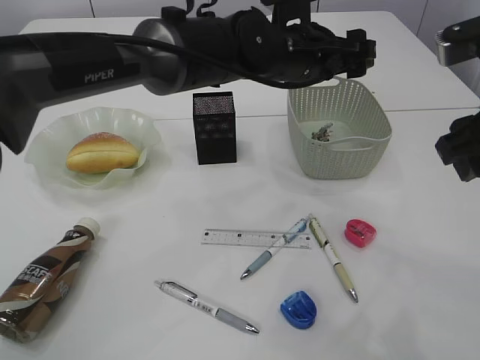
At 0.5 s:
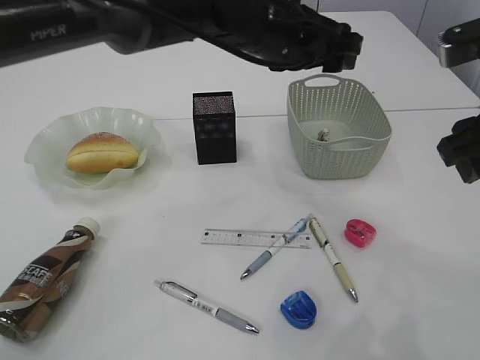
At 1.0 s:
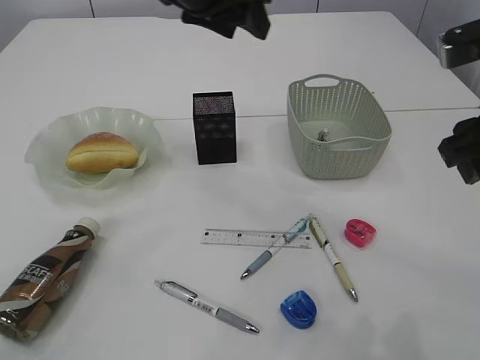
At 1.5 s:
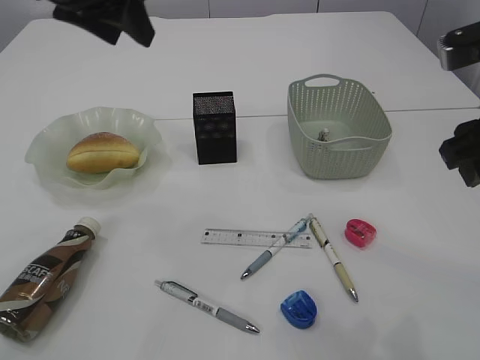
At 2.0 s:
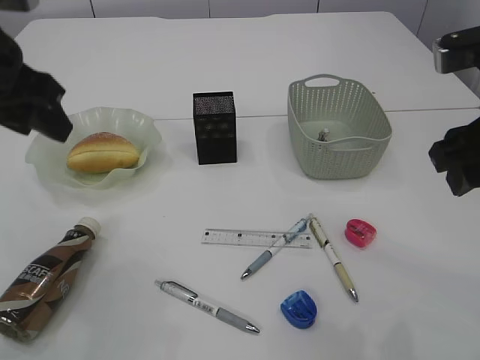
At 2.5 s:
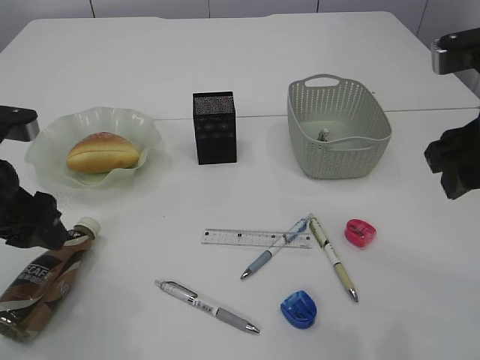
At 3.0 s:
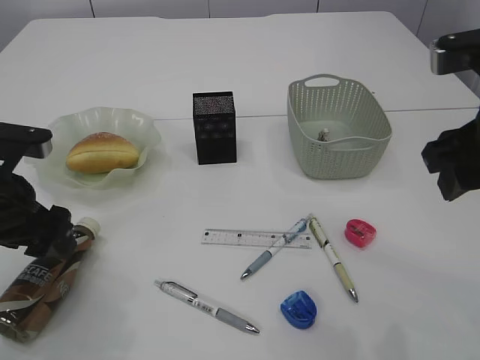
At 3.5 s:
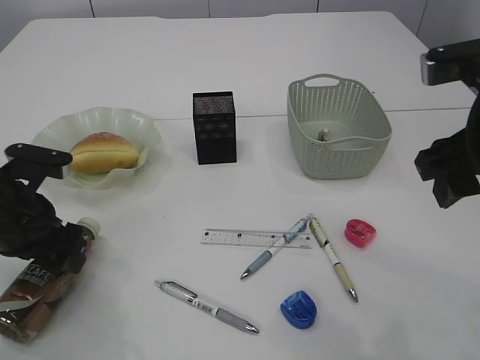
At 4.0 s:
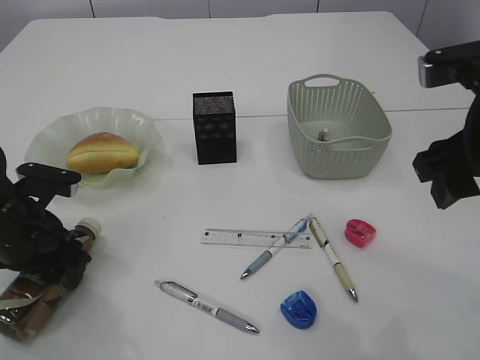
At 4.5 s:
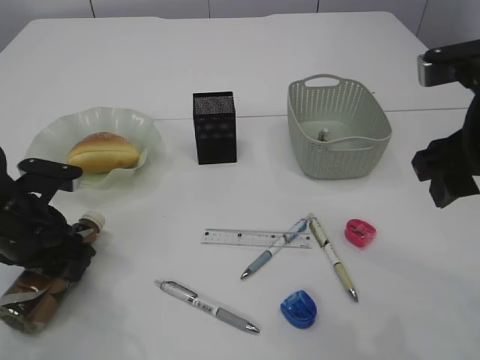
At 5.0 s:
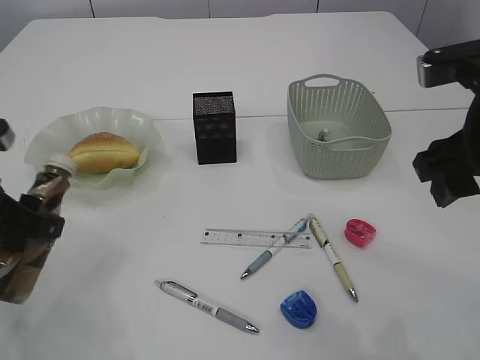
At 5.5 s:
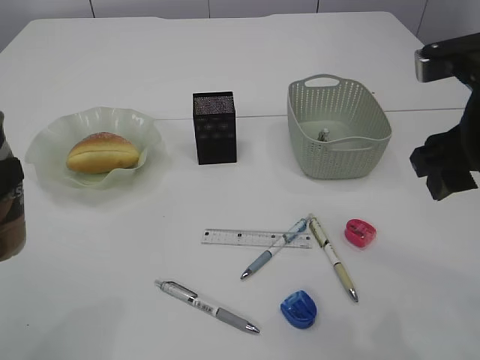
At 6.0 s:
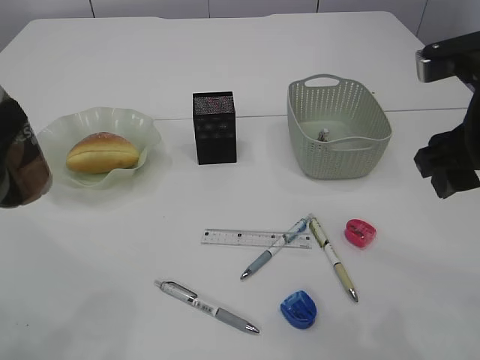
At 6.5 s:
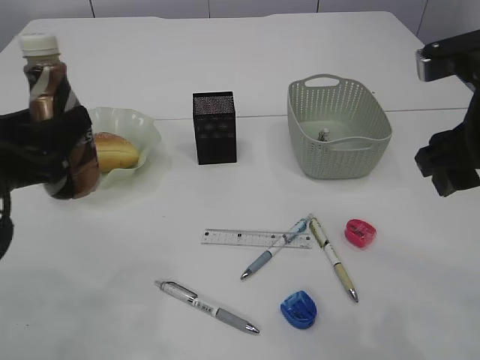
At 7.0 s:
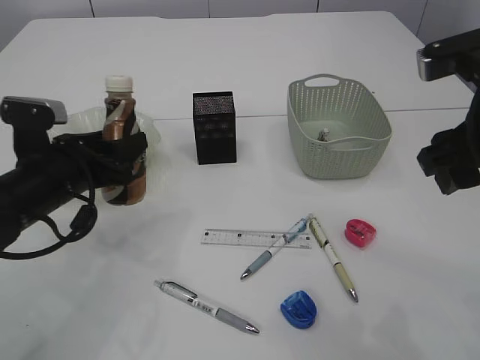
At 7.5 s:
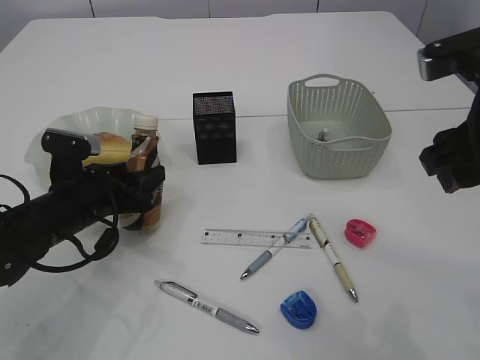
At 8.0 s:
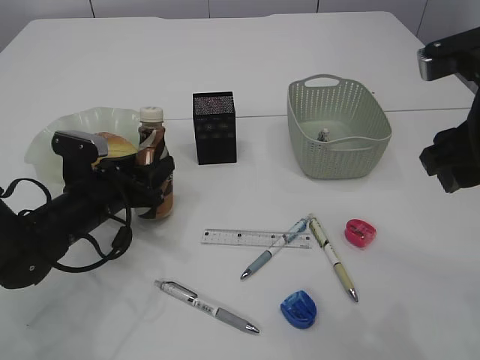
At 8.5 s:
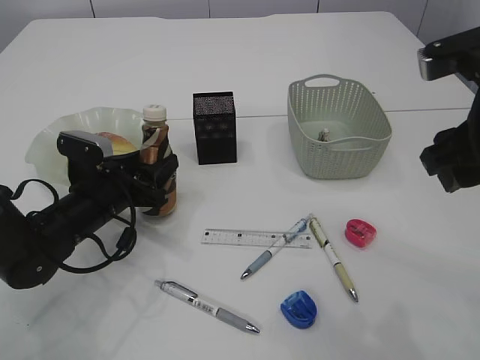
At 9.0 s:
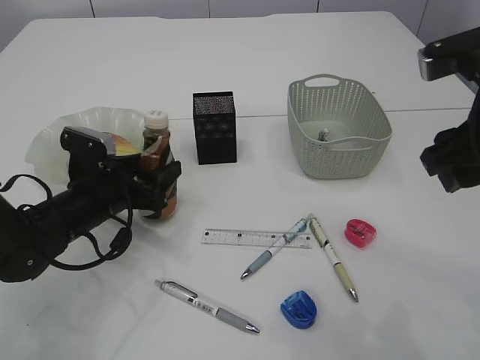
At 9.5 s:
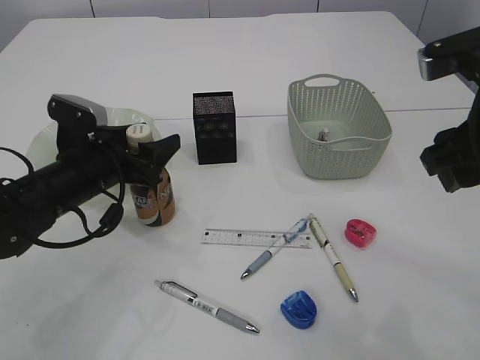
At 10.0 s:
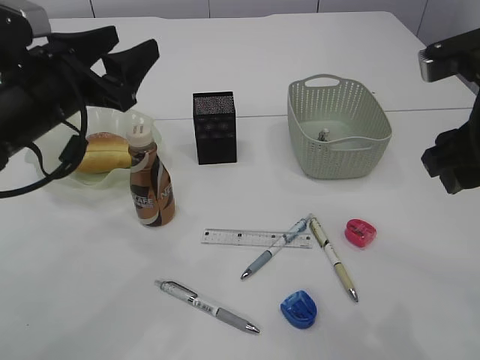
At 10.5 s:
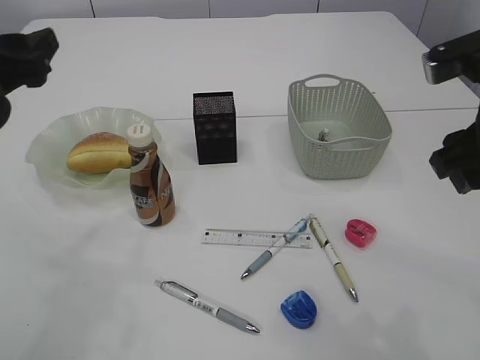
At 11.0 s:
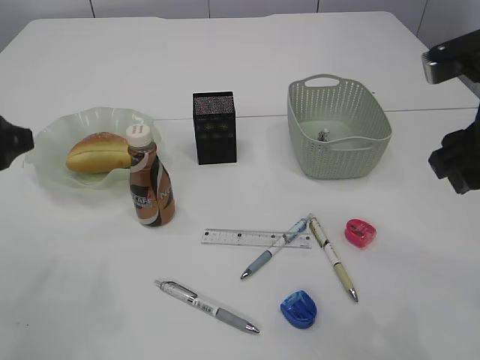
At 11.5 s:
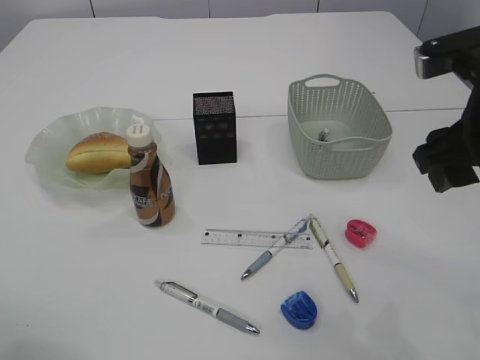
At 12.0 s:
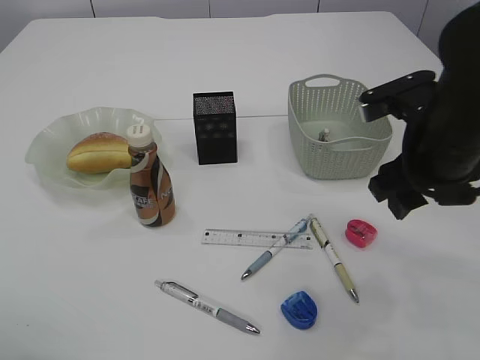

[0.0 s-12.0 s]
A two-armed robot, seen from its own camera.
Step, 0.5 to 4.5 s: Pick up the bottle with the left arm.
Step, 5.0 to 10.0 s: Place the bottle.
0.0 to 2.0 s: The left gripper moves to the left and backward, some 30 cm, and closes.
2.0 to 4.0 s: The left gripper travels downward by some 20 cm.
4.0 to 6.0 s: The left gripper heads upward and backward, covering some 15 cm.
6.0 to 8.0 s: The left gripper heads downward, forward and to the right, covering approximately 20 cm.
8.0 to 10.0 s: The left gripper moves upward, roughly 15 cm, and opens.
10.0 to 12.0 s: The left gripper travels backward and to the left by roughly 15 cm, while the right gripper shifts about 5 cm downward.

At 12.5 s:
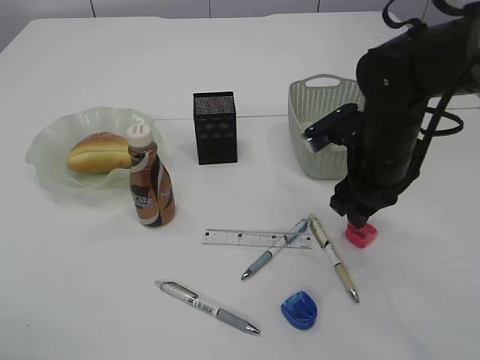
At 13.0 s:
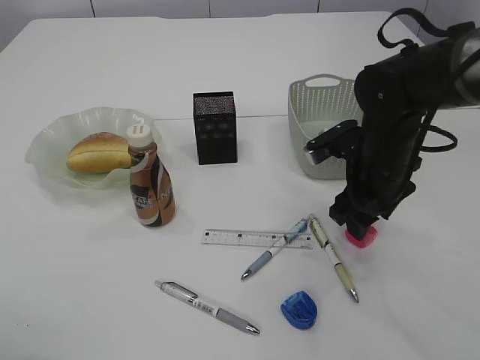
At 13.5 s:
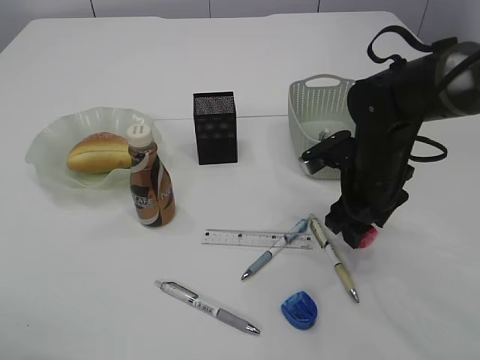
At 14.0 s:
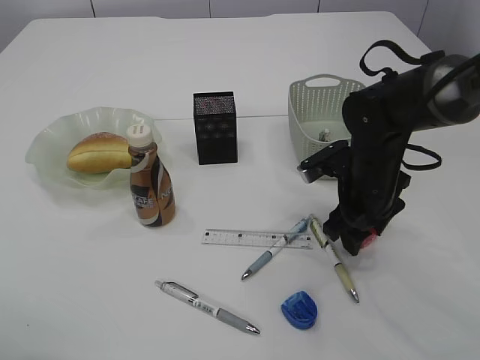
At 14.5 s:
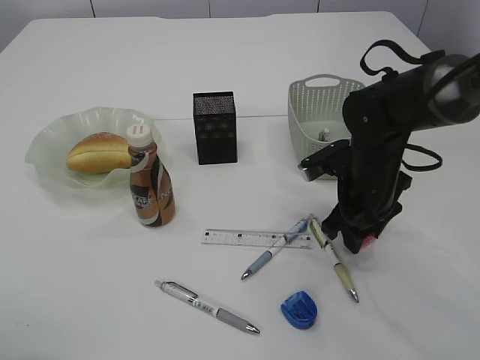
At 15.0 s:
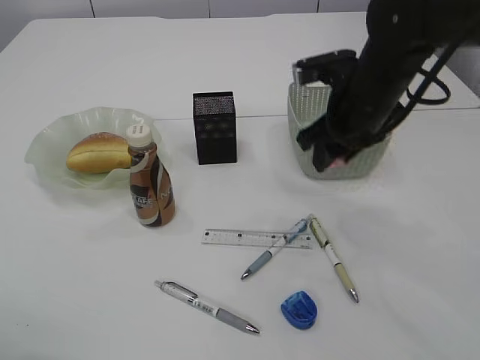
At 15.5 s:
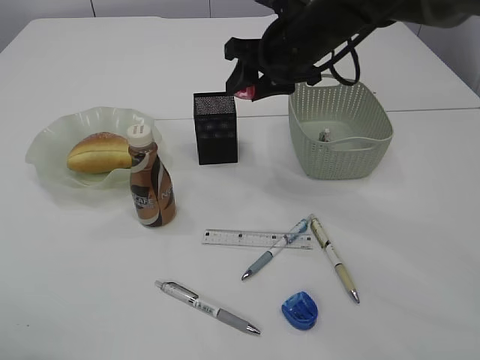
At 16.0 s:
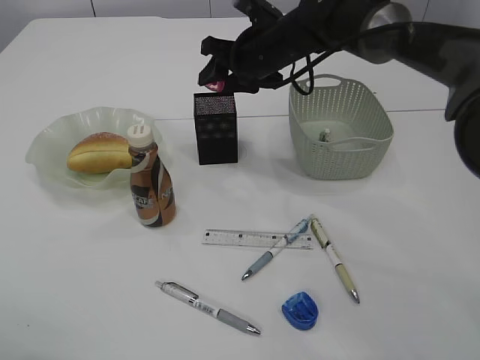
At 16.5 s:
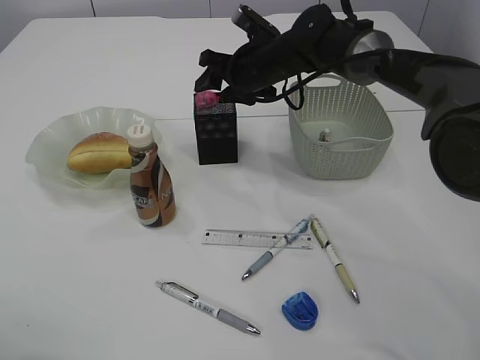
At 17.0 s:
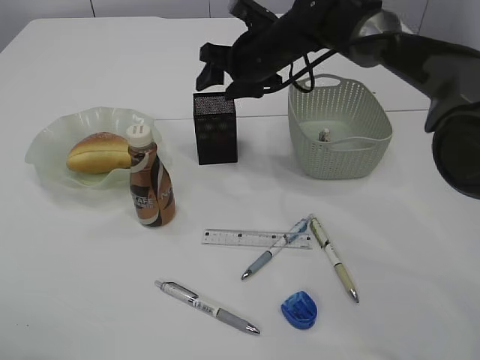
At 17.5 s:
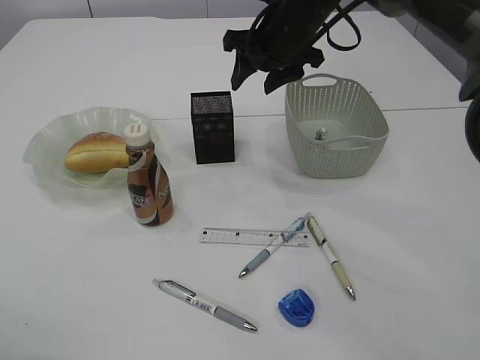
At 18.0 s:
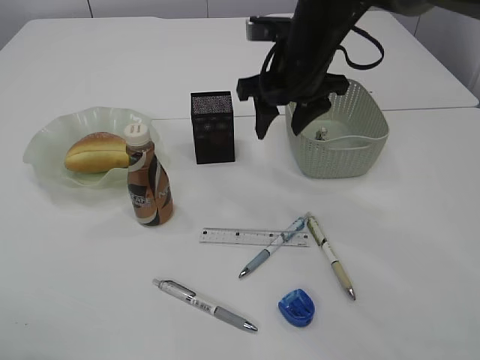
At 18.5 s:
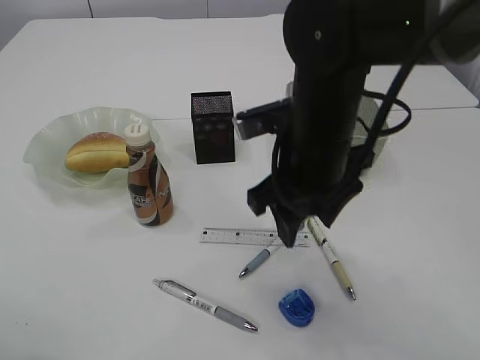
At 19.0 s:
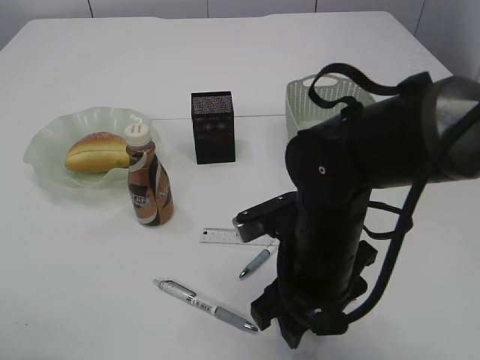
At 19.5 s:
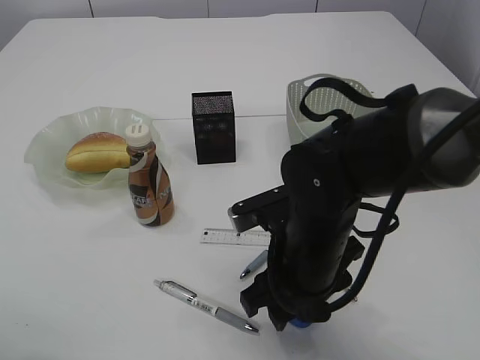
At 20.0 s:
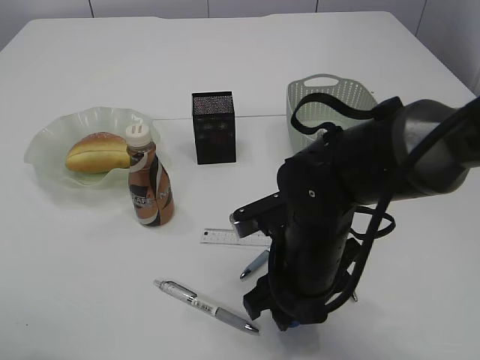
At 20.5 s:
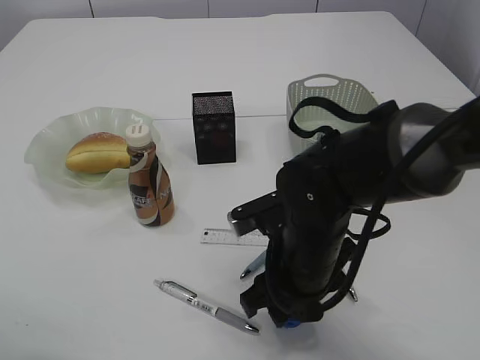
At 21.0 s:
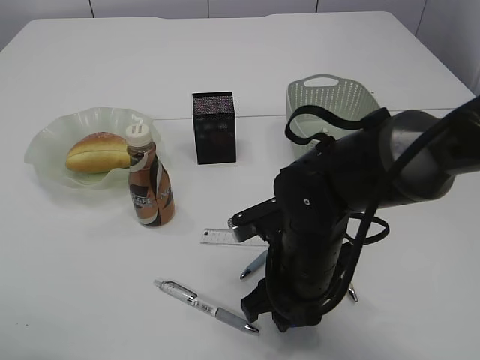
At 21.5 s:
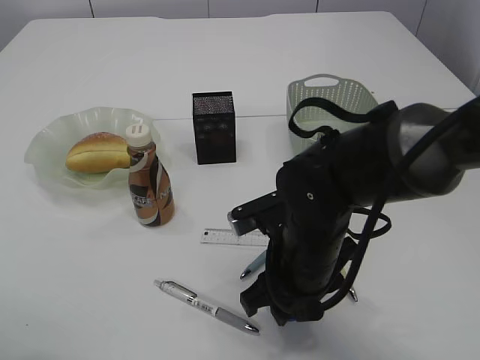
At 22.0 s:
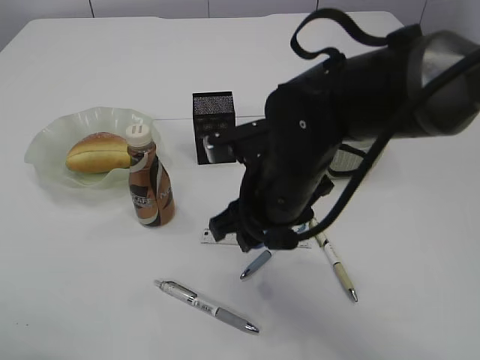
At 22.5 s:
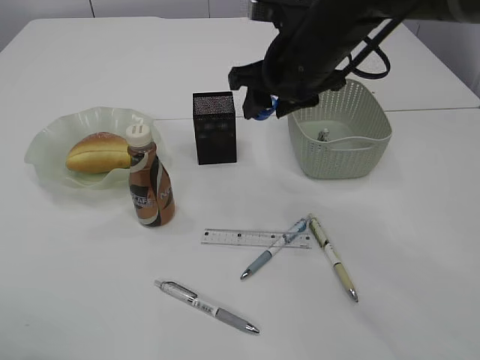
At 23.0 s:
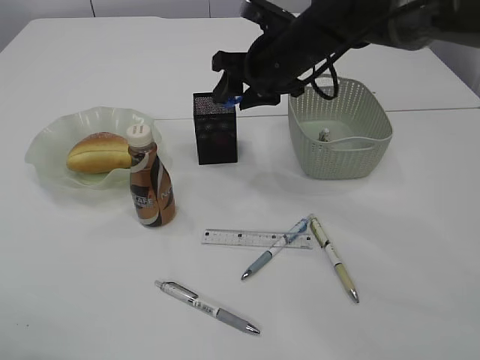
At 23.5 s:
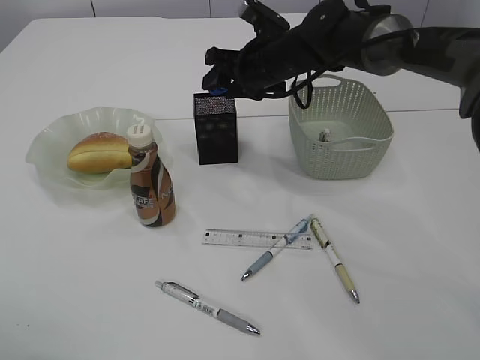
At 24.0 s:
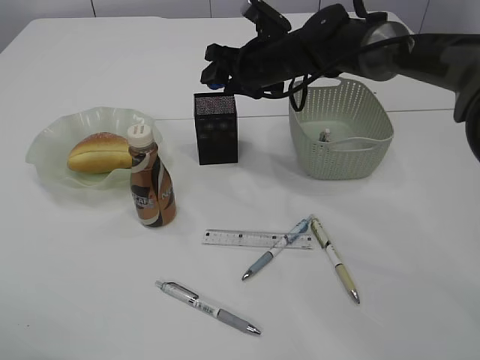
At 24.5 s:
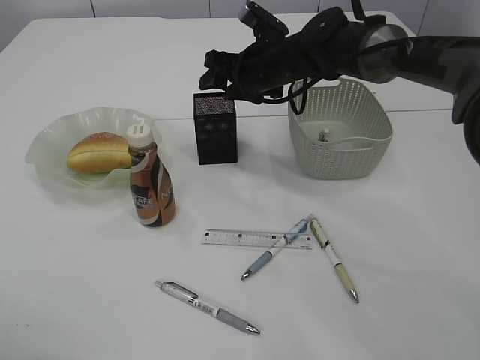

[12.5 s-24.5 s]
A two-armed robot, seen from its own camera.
Step, 12.5 to 14.5 s: Pick up the red pencil sharpener.
Step, 15.0 to 17.0 s: Place the red pencil sharpener into the pen holder.
Step, 17.5 to 21.5 s: Pick up the blue pencil sharpener.
12.5 to 14.5 s: The right gripper shifts approximately 5 cm downward.
14.5 to 16.5 s: The right gripper travels forward, to the left and upward by some 20 cm.
16.5 to 18.5 s: The right gripper is displaced backward by roughly 20 cm.
18.5 to 20.5 s: The right gripper travels downward by some 10 cm.
20.5 to 22.5 s: The right gripper moves upward and forward, approximately 20 cm.
22.5 to 24.5 s: The right gripper shifts roughly 15 cm forward and downward.

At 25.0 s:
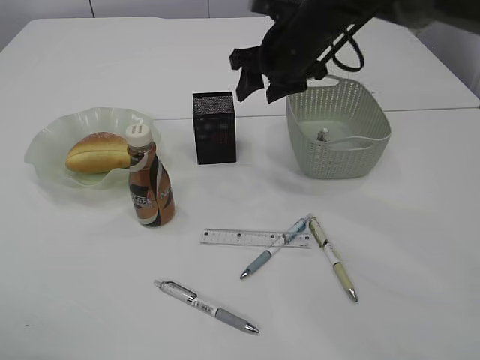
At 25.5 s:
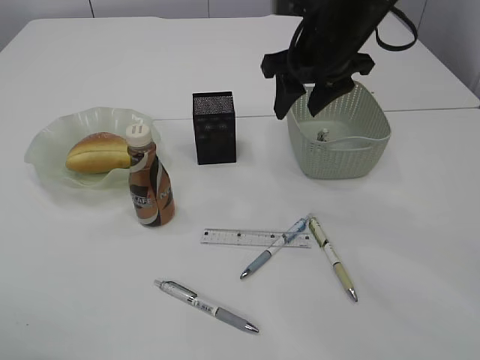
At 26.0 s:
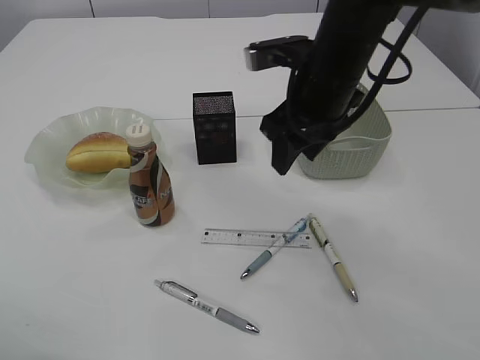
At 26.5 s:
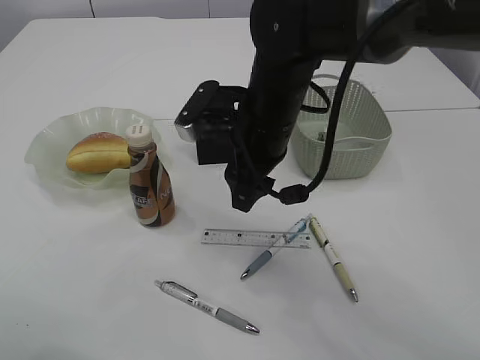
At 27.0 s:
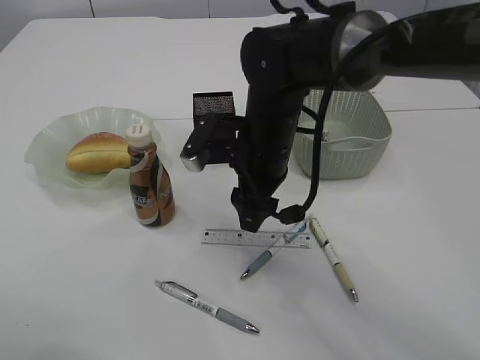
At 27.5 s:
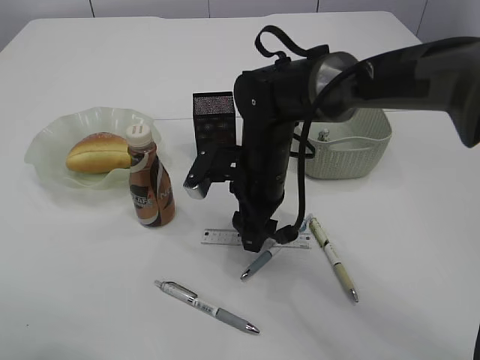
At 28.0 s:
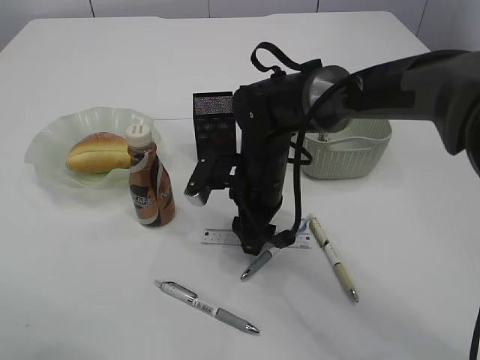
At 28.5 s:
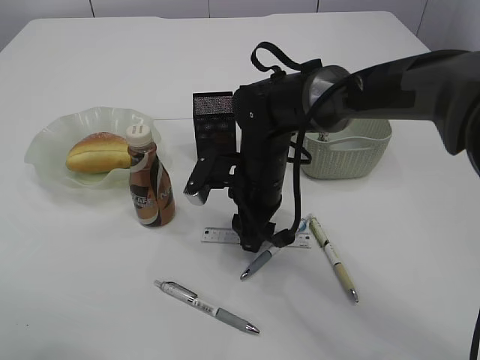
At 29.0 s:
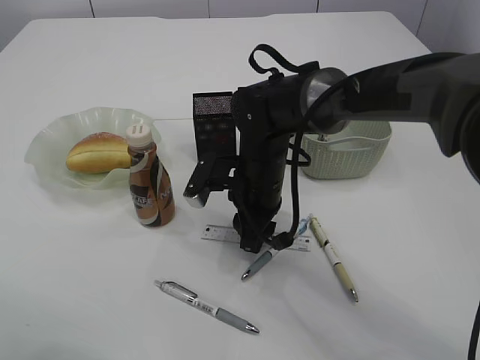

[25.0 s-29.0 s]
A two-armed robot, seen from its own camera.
25.0 to 27.0 s: The right gripper is displaced backward, downward and to the left by approximately 15 cm.
27.0 to 29.0 s: The right gripper travels downward by roughly 5 cm.
